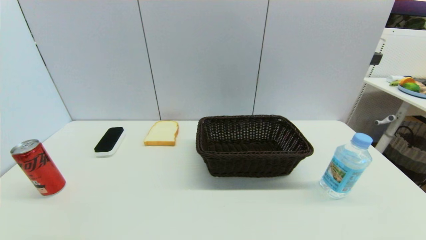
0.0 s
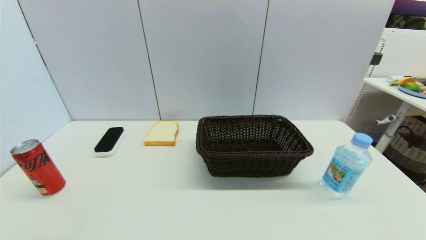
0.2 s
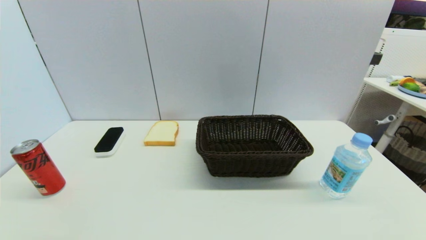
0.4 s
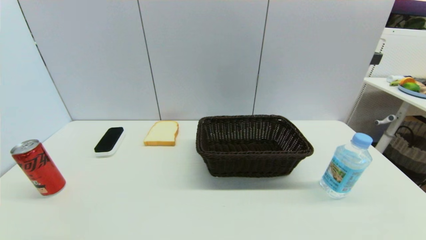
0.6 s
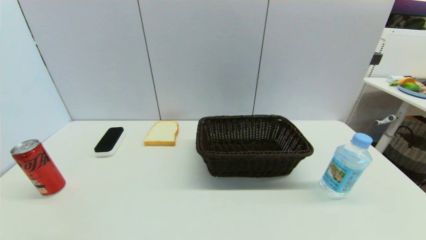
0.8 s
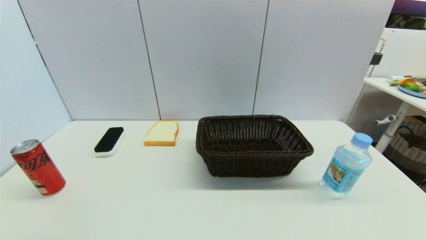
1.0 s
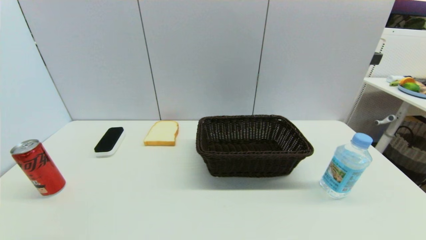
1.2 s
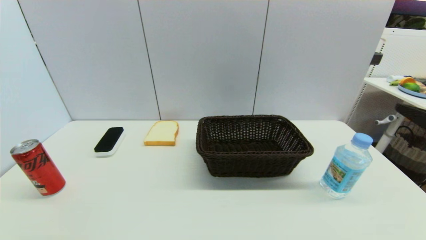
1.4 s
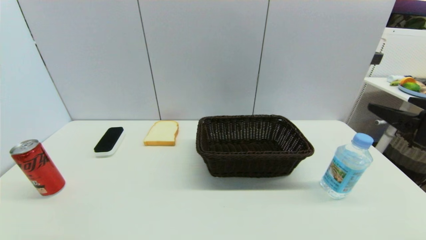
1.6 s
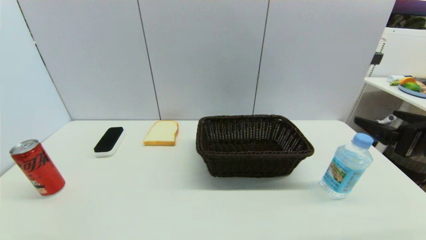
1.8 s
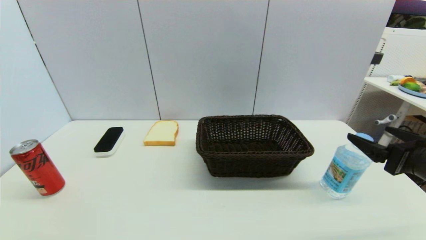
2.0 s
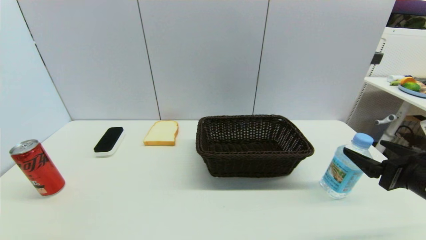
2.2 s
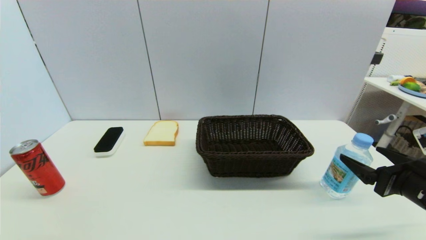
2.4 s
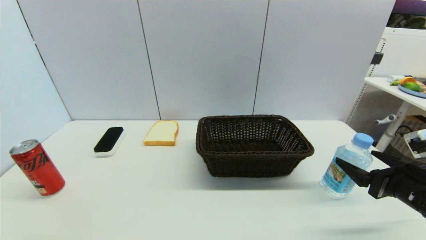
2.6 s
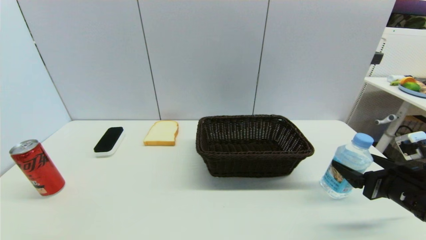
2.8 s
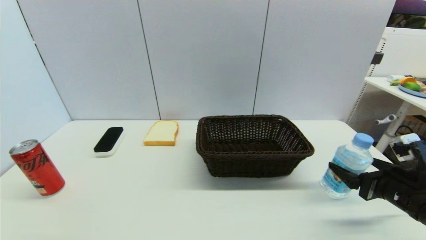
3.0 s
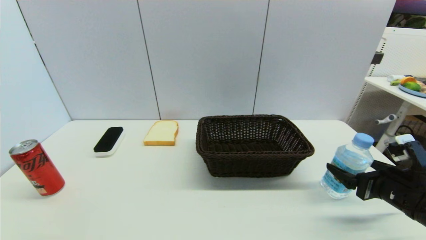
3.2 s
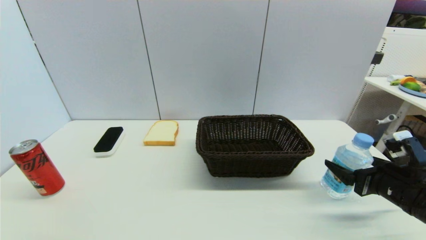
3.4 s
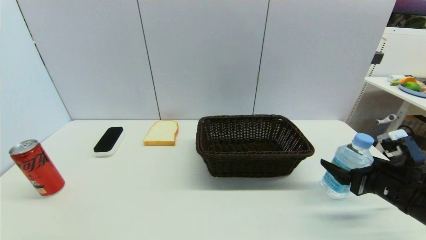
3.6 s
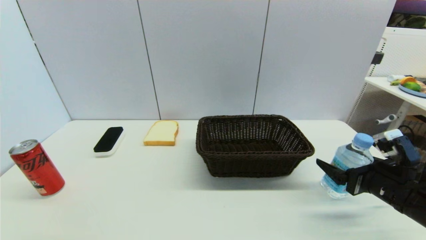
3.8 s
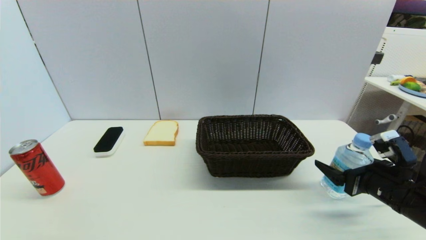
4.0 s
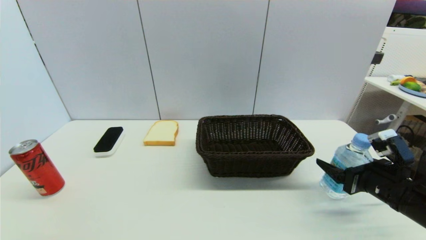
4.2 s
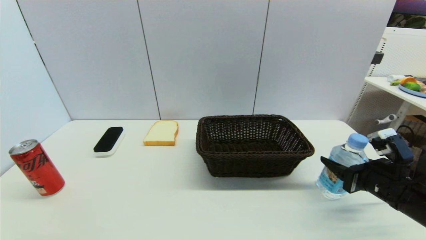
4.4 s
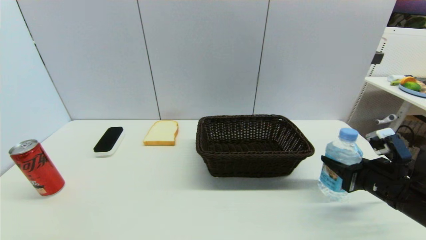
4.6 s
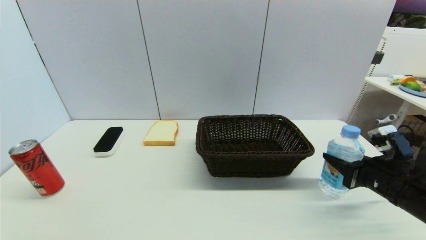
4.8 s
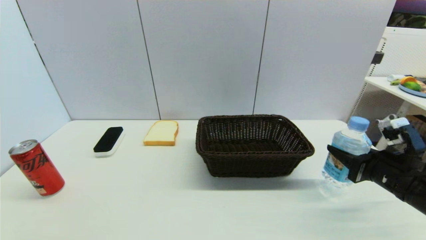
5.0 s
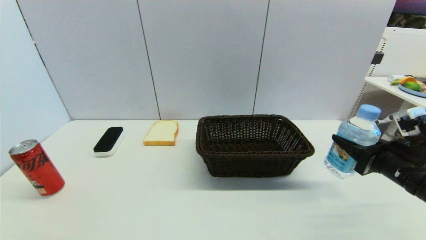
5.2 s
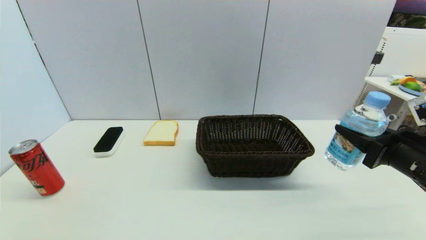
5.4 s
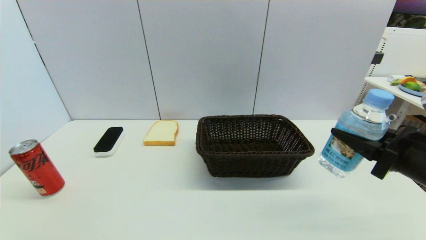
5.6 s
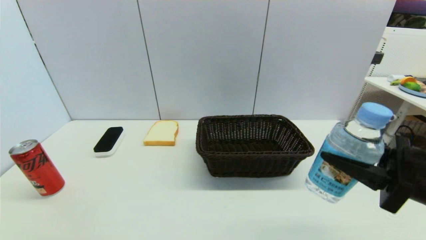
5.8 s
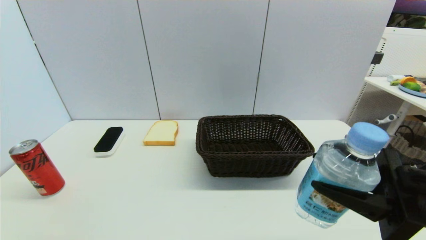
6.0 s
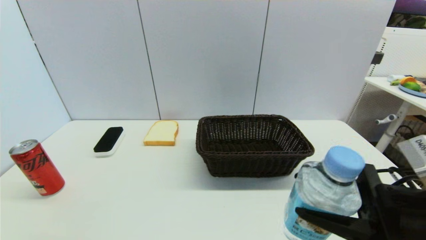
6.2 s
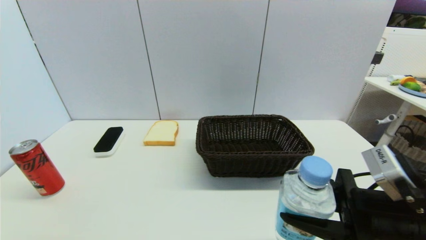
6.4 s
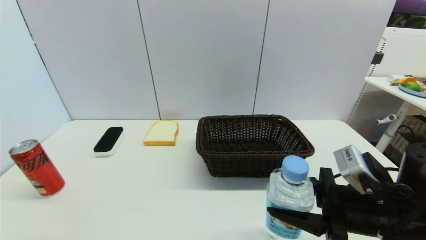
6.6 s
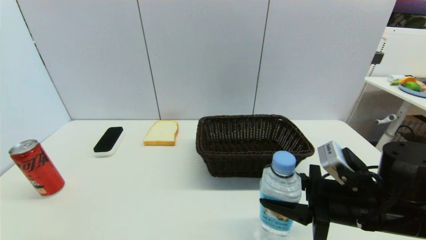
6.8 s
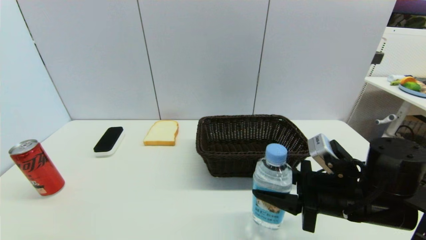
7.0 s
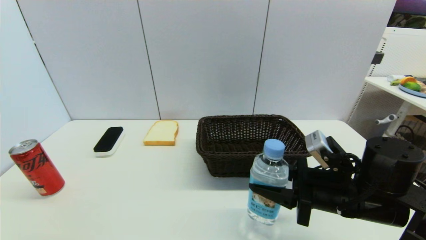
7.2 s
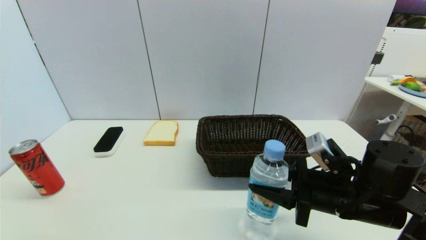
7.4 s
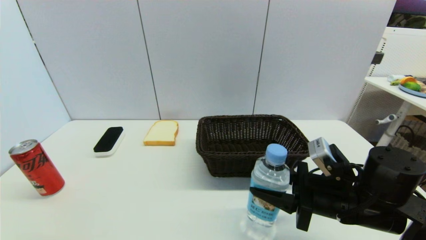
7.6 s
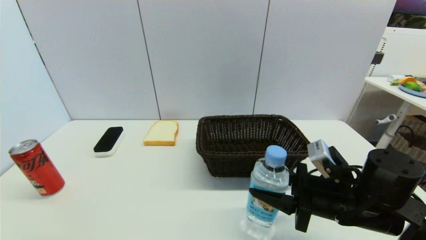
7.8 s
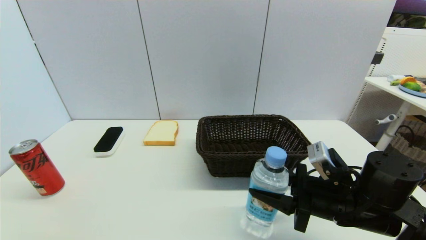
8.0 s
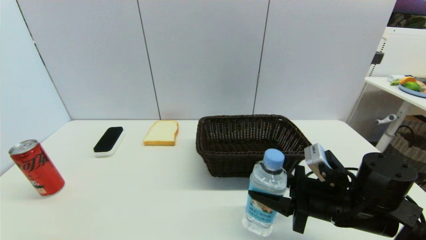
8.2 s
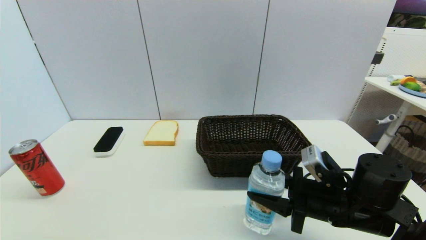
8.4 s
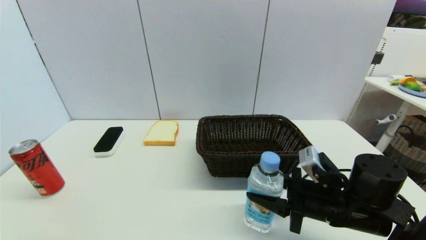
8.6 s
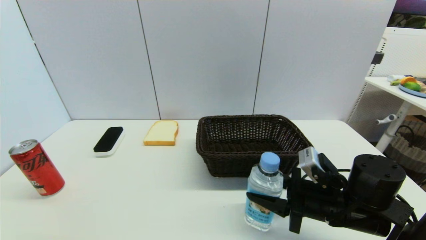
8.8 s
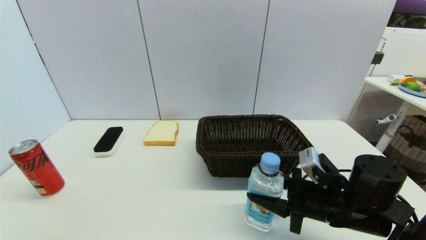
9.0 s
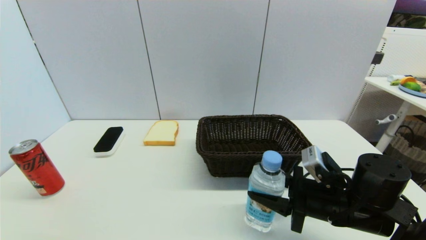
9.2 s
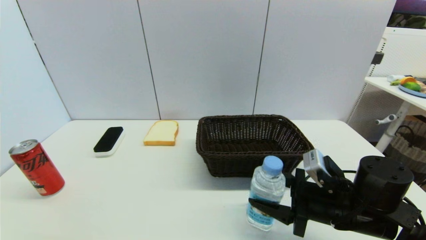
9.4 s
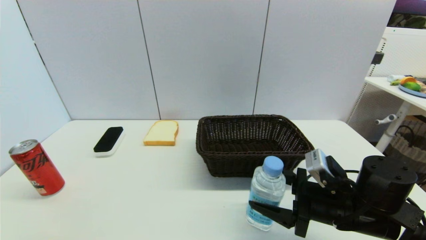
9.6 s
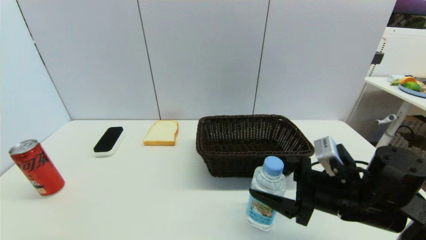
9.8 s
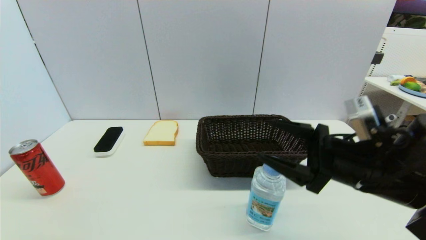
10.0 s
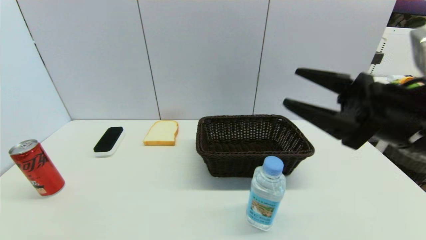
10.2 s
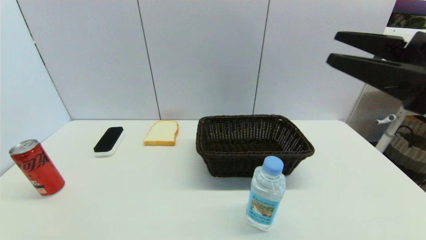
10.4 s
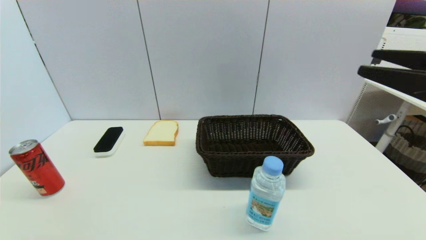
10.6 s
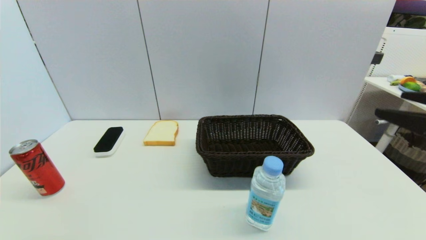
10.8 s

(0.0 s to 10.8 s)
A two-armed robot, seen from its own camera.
Step, 1.4 s - 4.4 s: Grasp the soda water with right gripper.
Step, 4.8 s - 9.4 s: Place the soda water on the table with right gripper.
0.0 s - 1.6 s: The right gripper is displaced forward and upward by approximately 25 cm.
1.6 s - 3.0 s: The right gripper travels downward by some 15 cm.
3.0 s - 4.6 s: The right gripper closes.
4.6 s - 6.2 s: The right gripper goes roughly 15 cm to the left, backward and upward.
6.2 s - 7.8 s: The right gripper is displaced forward and downward by roughly 10 cm.
7.8 s - 9.2 s: There are only small adjustments of the grippers.
9.2 s - 10.8 s: The right gripper moves upward, to the right and backward, approximately 25 cm, and opens.

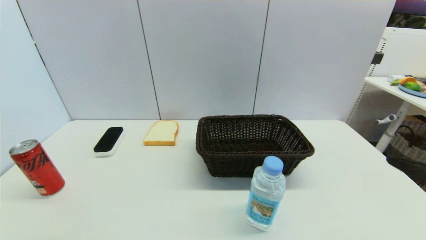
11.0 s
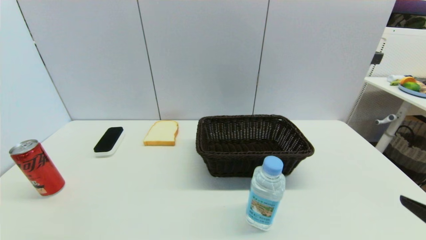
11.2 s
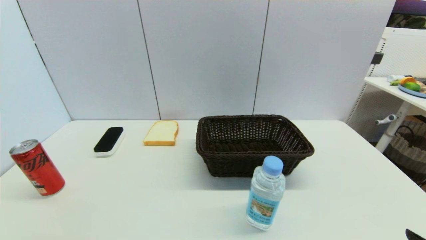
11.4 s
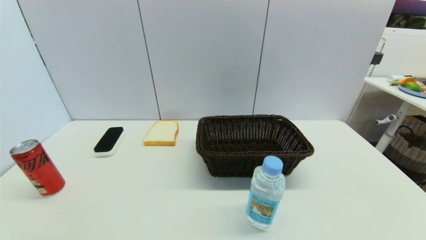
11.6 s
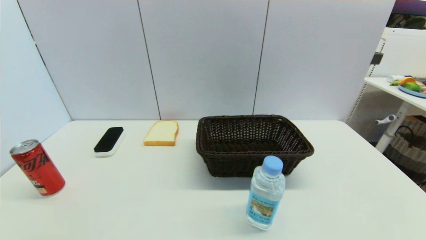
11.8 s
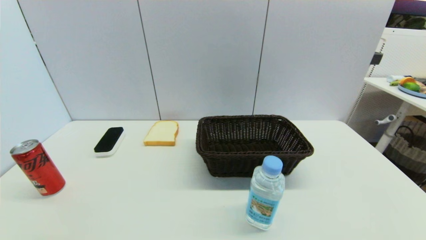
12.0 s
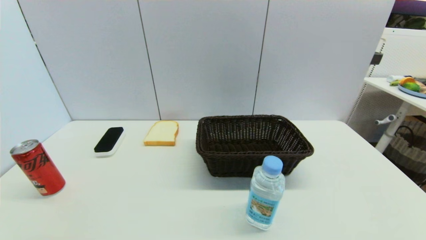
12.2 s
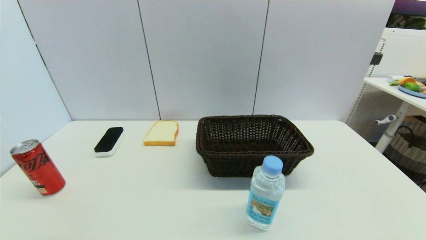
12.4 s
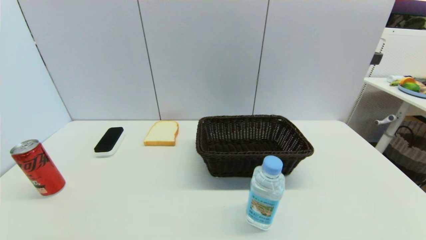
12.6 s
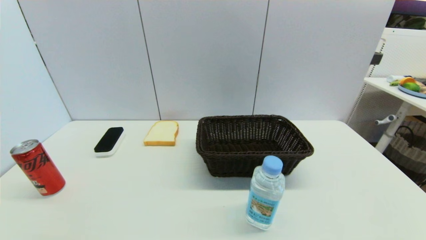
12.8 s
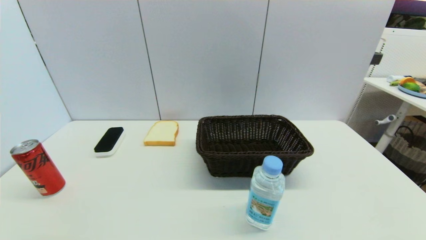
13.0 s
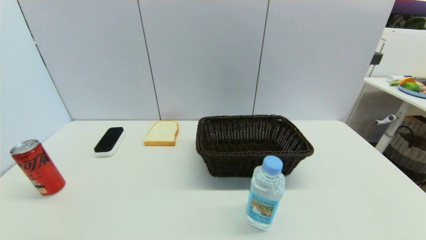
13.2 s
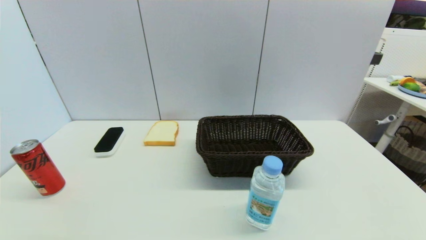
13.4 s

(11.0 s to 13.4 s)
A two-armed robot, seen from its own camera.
11.0 s - 12.2 s: The right gripper heads downward and backward, covering roughly 20 cm.
